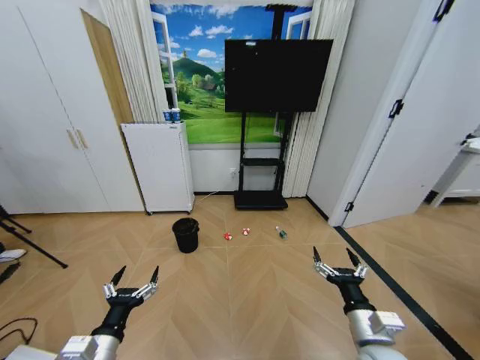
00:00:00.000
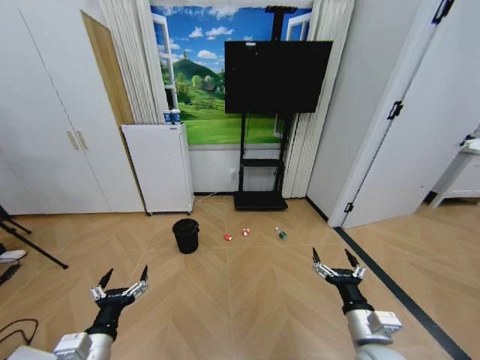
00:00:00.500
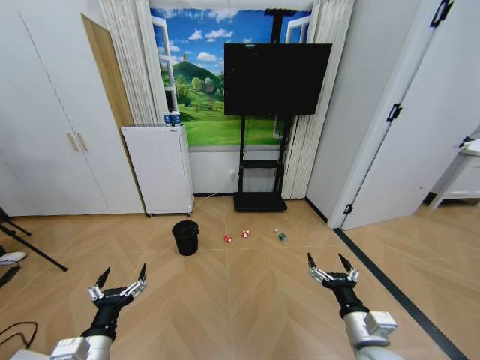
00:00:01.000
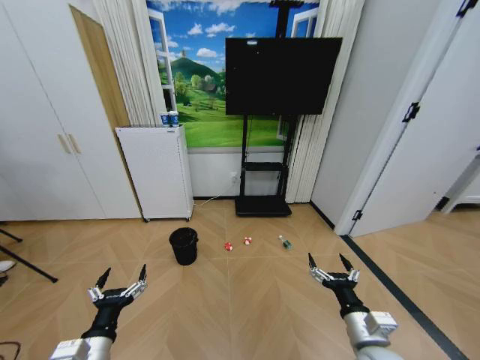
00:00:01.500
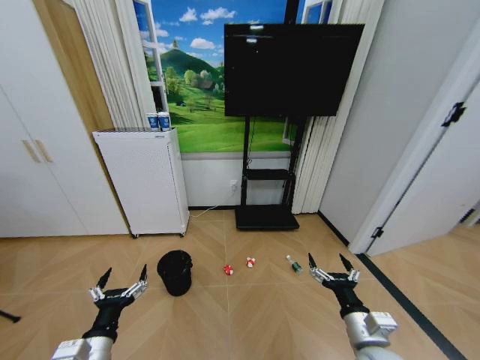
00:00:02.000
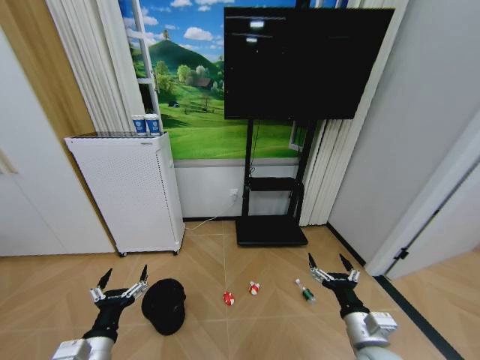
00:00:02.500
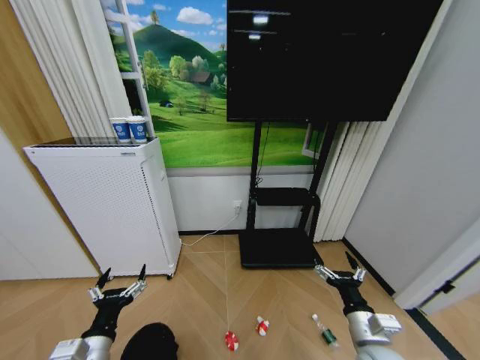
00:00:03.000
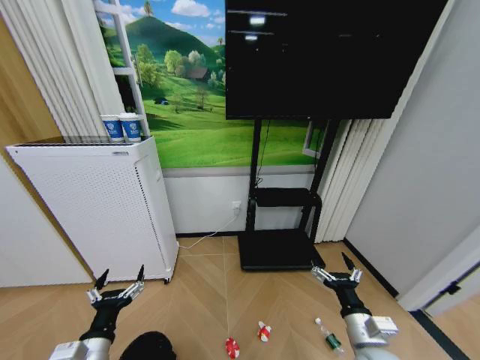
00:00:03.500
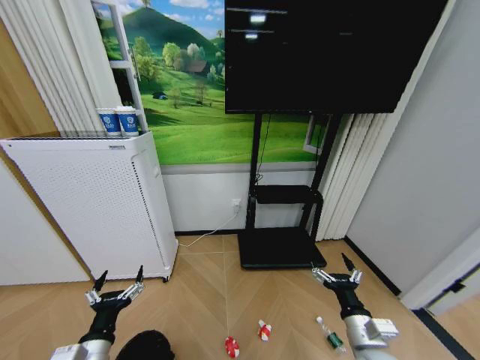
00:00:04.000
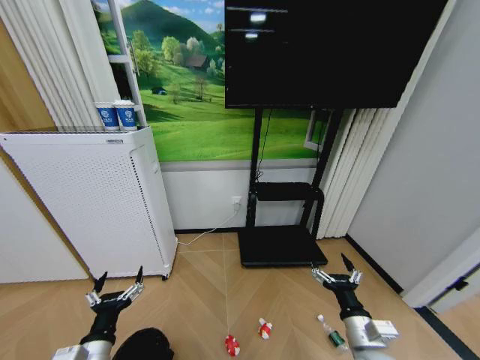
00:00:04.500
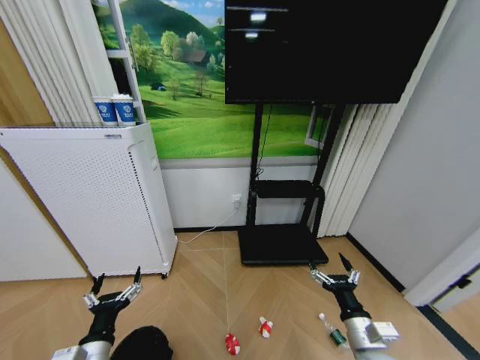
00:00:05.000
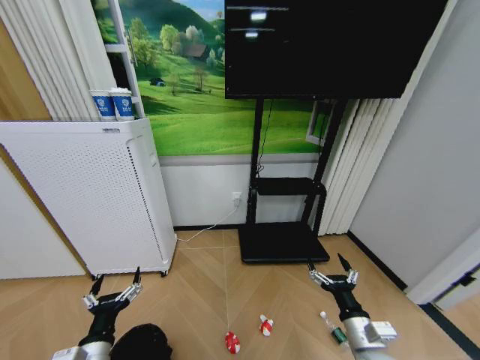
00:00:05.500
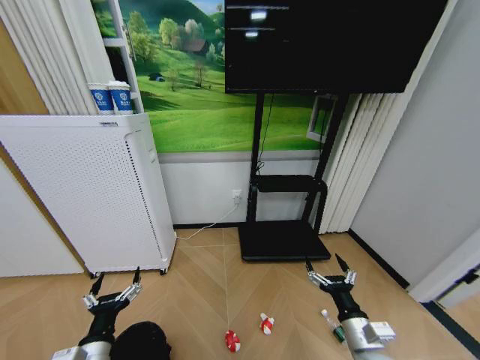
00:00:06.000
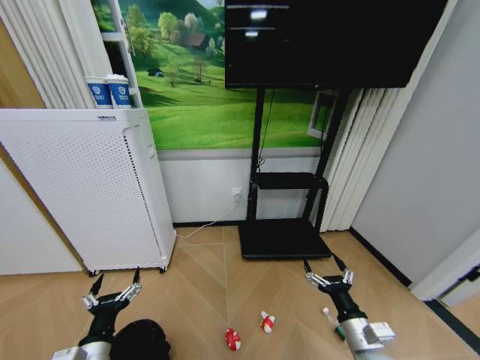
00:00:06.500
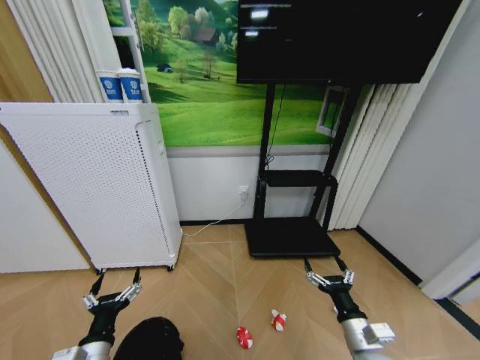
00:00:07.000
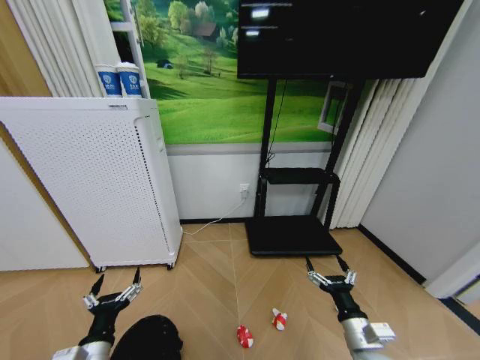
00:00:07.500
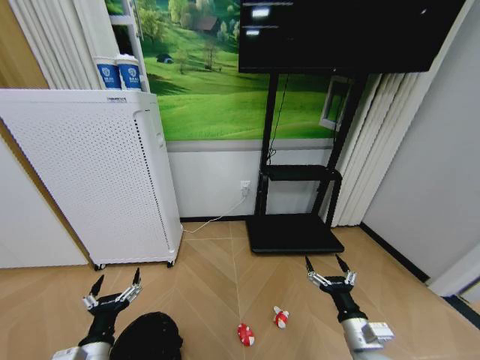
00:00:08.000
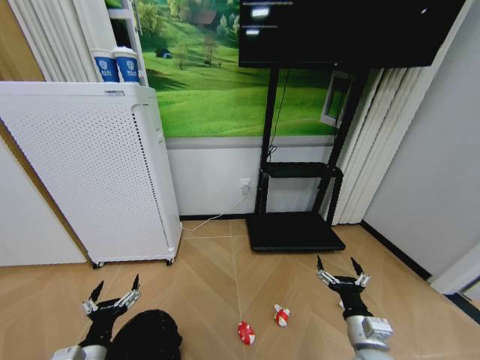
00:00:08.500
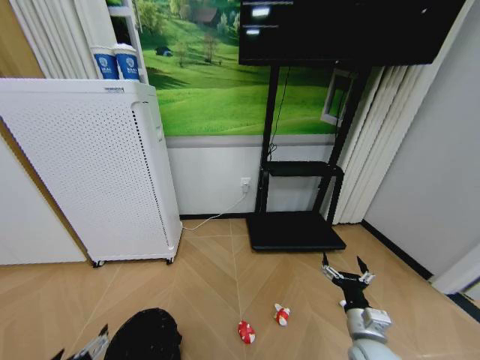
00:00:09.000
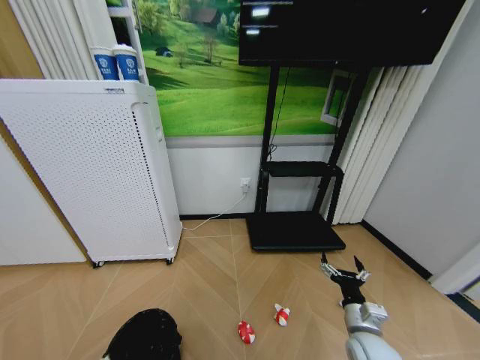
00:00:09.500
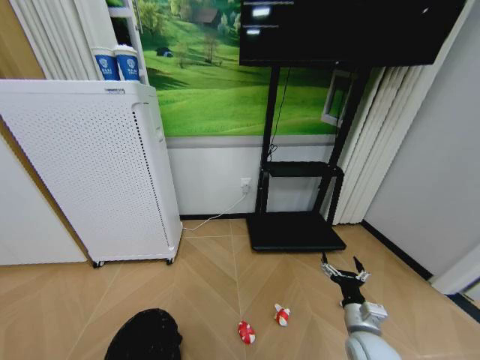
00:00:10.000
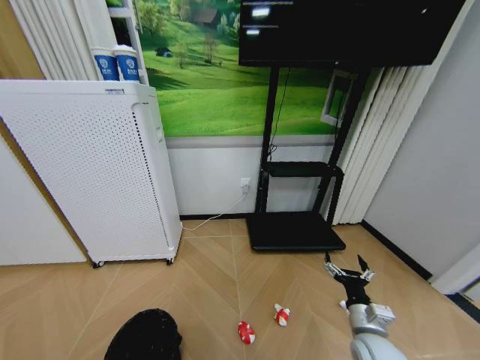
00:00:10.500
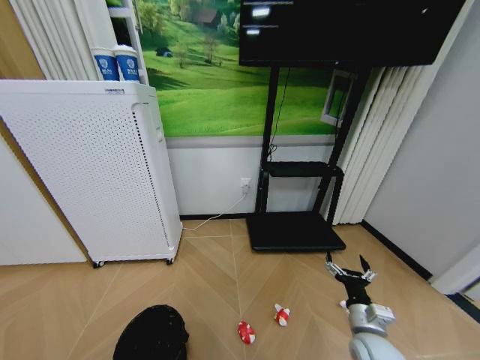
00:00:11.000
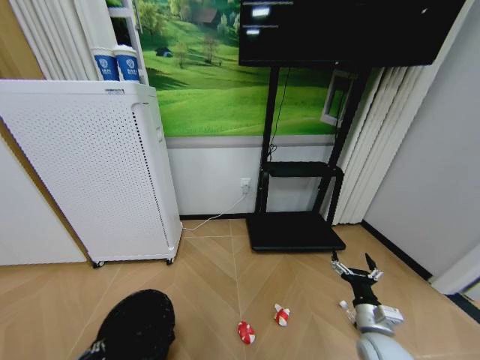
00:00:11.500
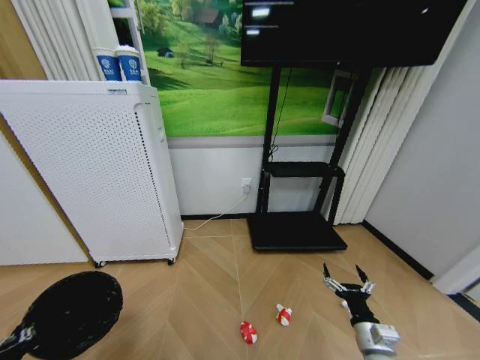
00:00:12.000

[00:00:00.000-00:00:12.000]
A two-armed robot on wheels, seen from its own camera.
Task of the whole recording: Pick up the trash bin and place the garbage on the floor into it.
00:00:08.000 to 00:00:10.000: The left gripper is displaced backward by about 5 cm.
00:00:10.000 to 00:00:12.000: The left gripper is displaced to the left by about 10 cm, and closes up.

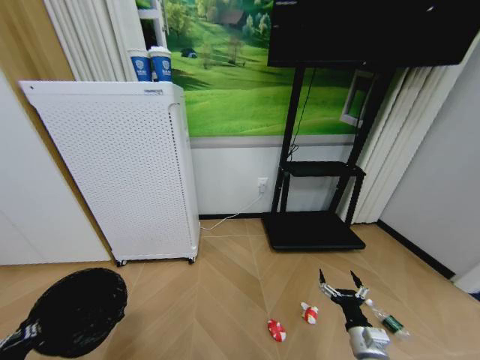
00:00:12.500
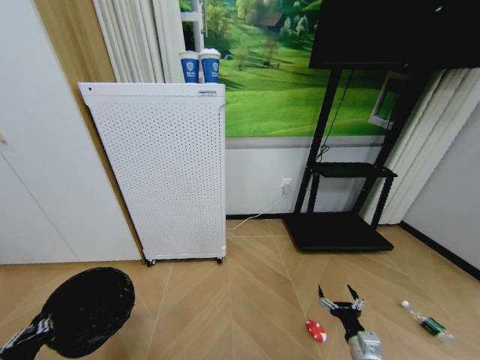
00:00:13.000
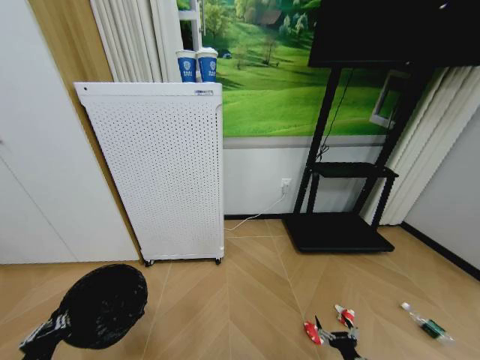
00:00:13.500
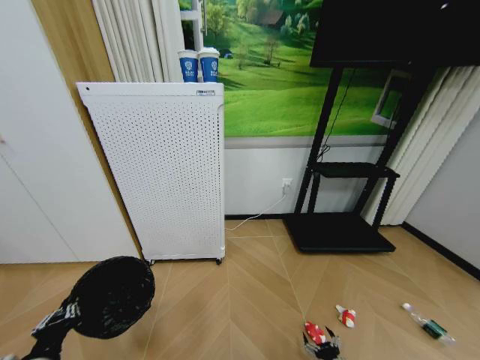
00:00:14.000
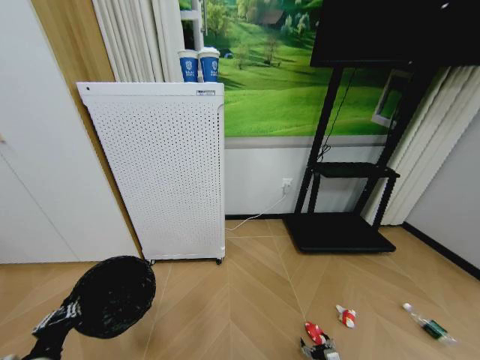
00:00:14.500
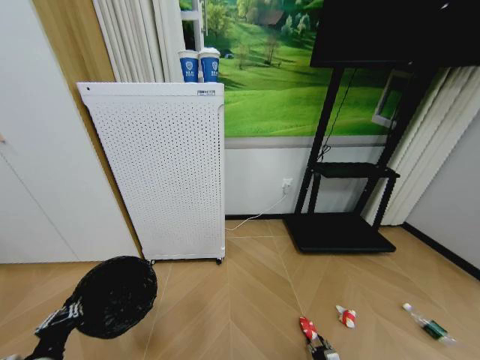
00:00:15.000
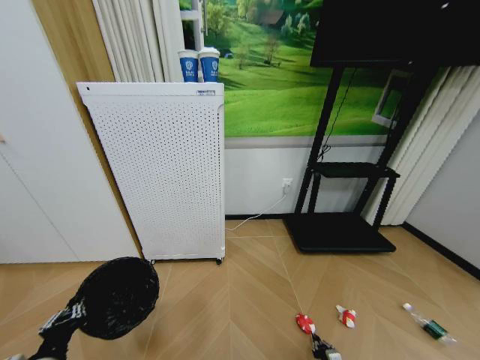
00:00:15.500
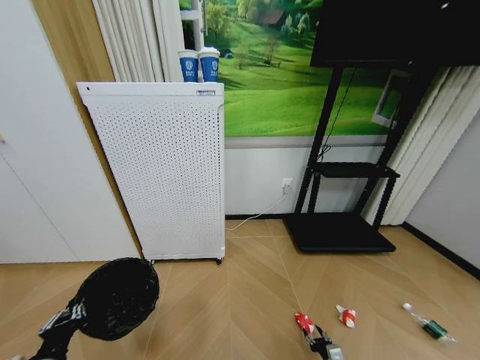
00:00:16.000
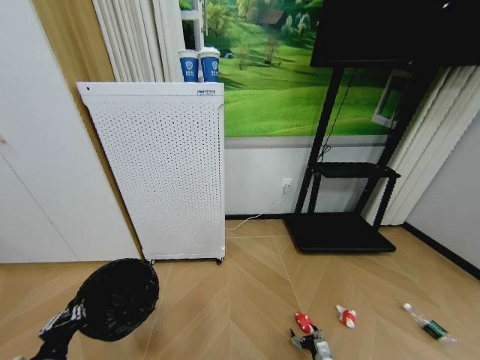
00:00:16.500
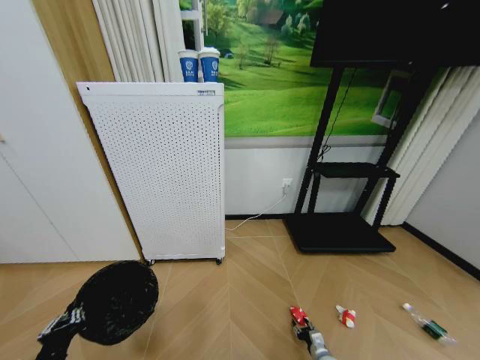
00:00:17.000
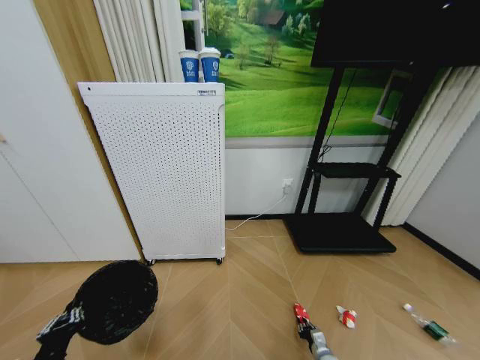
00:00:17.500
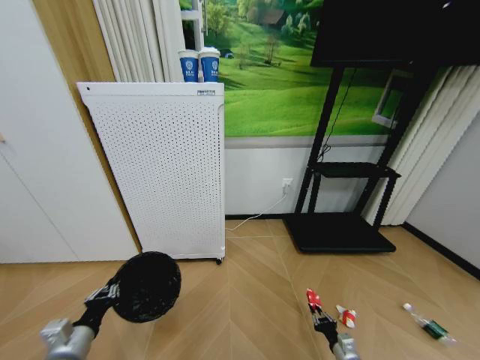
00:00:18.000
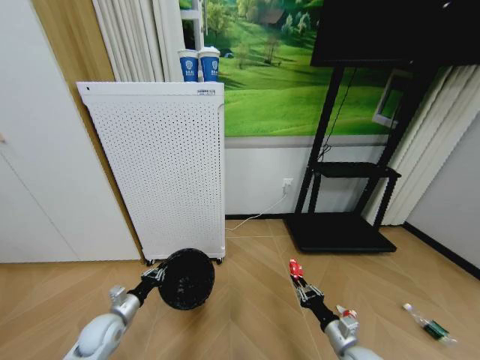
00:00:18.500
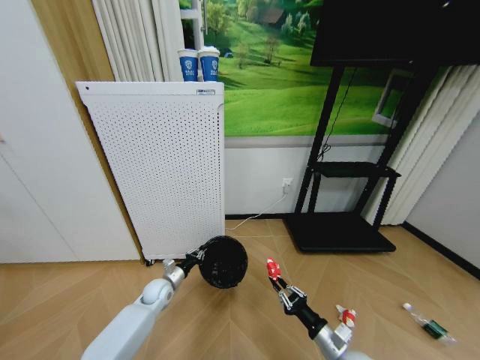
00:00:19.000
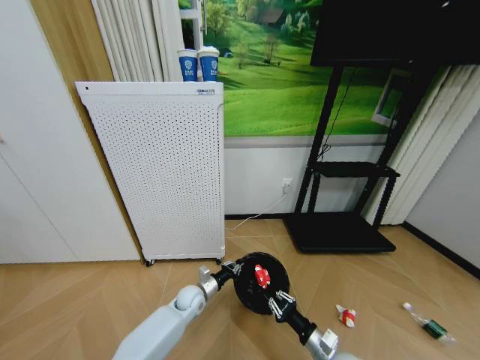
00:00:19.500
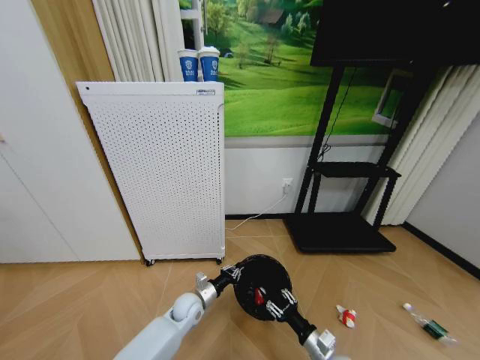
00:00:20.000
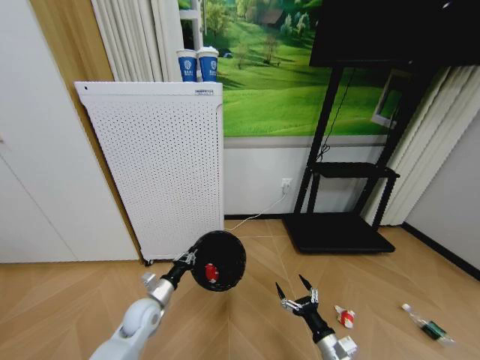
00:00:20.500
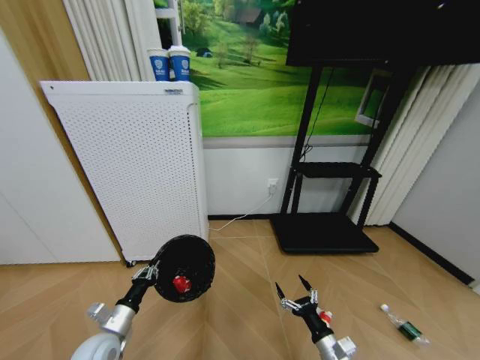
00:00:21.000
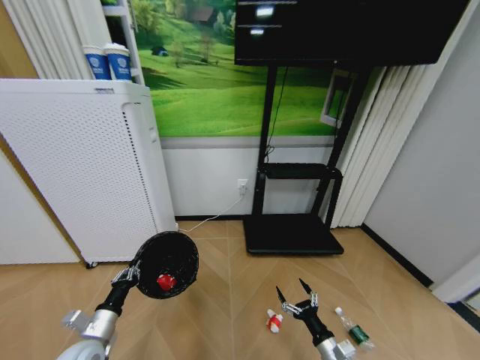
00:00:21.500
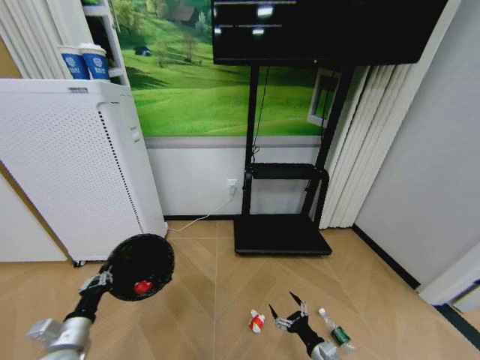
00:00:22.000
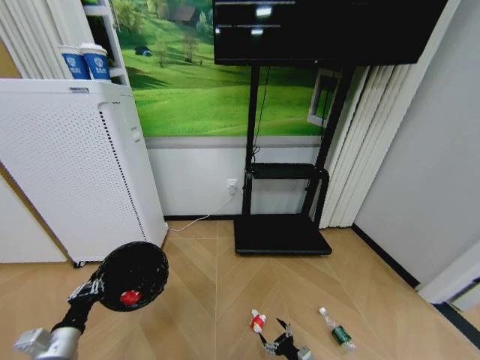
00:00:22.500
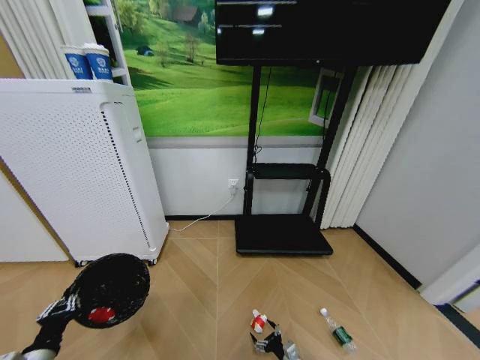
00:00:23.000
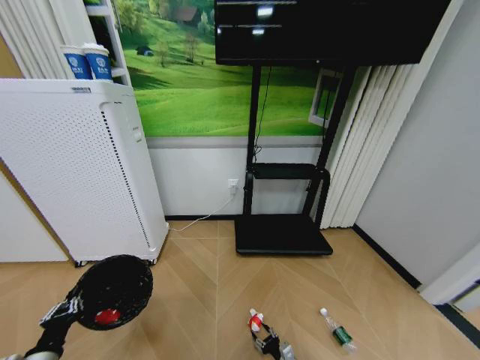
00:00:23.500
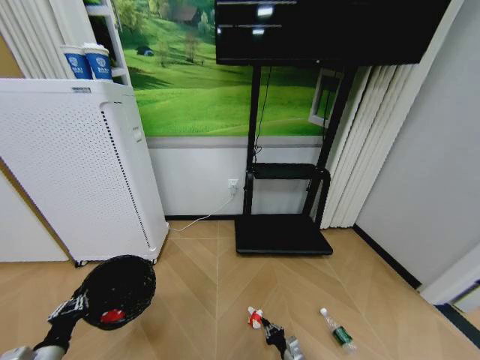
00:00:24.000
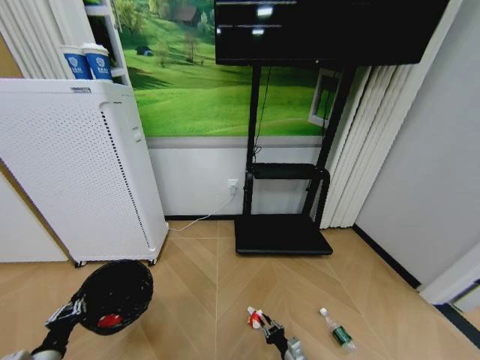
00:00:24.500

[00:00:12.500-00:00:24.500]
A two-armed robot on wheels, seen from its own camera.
Task of the whole recording: Pick up the trash bin and place the garbage on the floor into it.
00:00:12.500 to 00:00:14.500: The left gripper shifts by some 5 cm. The right gripper travels downward by approximately 20 cm.
00:00:14.500 to 00:00:16.500: The right gripper closes, then reopens.
00:00:16.500 to 00:00:18.500: The right gripper moves upward, roughly 20 cm, and closes. The left gripper heads forward and downward, covering roughly 20 cm.
00:00:18.500 to 00:00:20.500: The right gripper ends up some 5 cm from where it was, and opens. The left gripper is displaced to the right and forward by about 15 cm.
00:00:20.500 to 00:00:22.500: The left gripper goes approximately 25 cm to the left and backward. Meanwhile the right gripper is displaced downward by roughly 10 cm.
00:00:22.500 to 00:00:24.500: The right gripper closes its fingers.

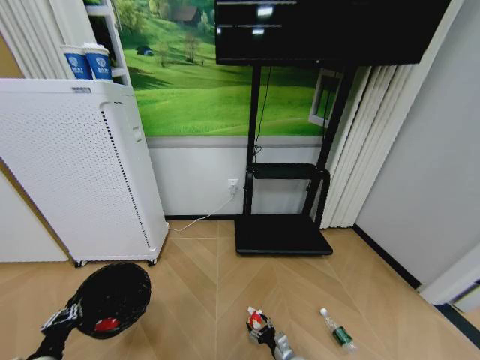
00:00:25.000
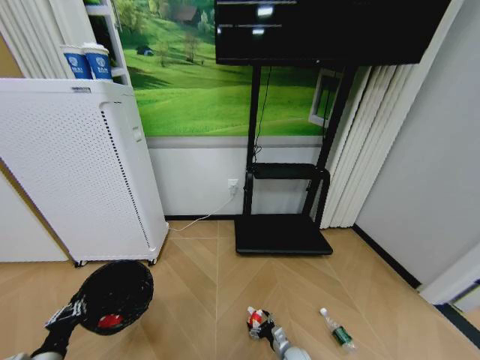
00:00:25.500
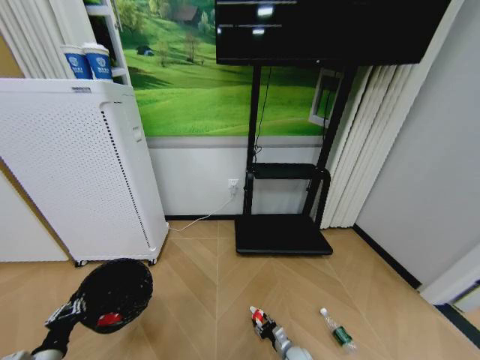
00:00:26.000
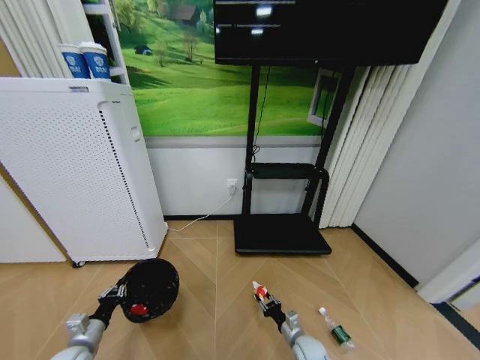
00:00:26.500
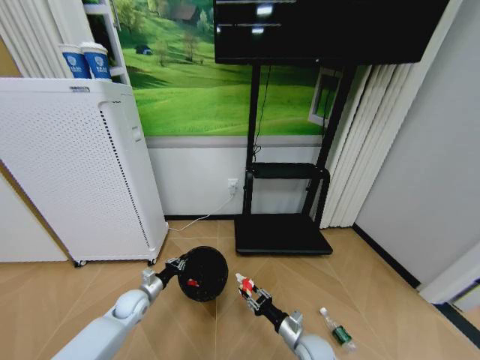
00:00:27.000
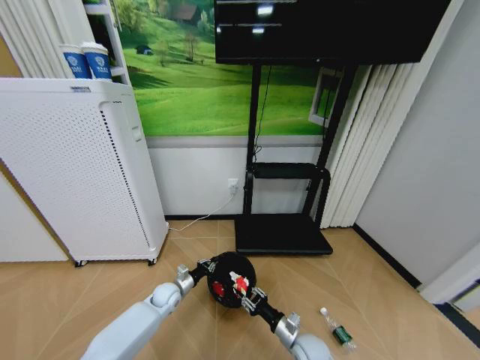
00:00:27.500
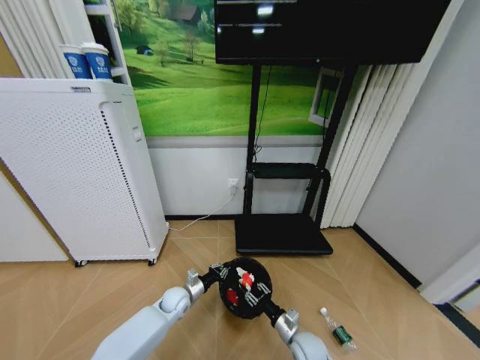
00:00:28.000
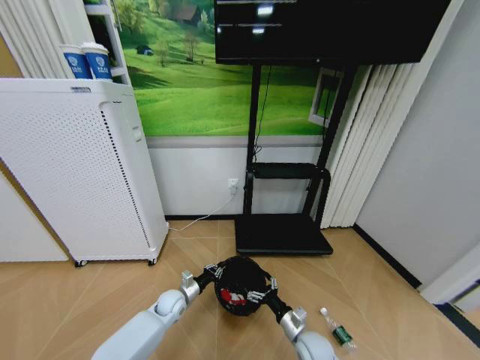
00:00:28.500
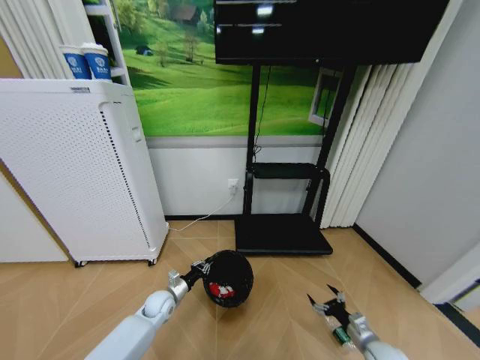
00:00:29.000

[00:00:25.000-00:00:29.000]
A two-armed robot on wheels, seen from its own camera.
Task of the whole recording: Pick up the trash bin and place the garbage on the floor into it.
00:00:25.000 to 00:00:27.000: The right gripper moves upward, about 15 cm, and closes its fingers. Meanwhile the left gripper heads forward, covering approximately 25 cm.
00:00:27.000 to 00:00:29.000: The right gripper travels to the right by roughly 20 cm, and opens; the left gripper heads to the right, covering approximately 10 cm.
